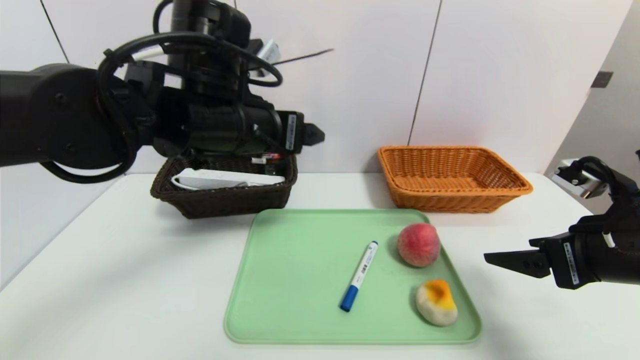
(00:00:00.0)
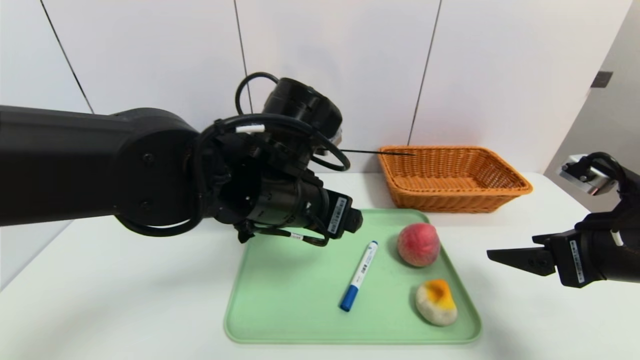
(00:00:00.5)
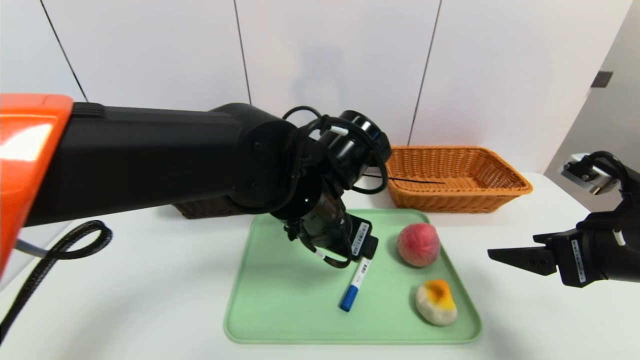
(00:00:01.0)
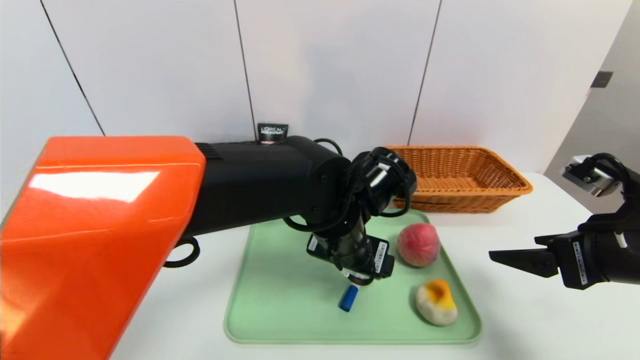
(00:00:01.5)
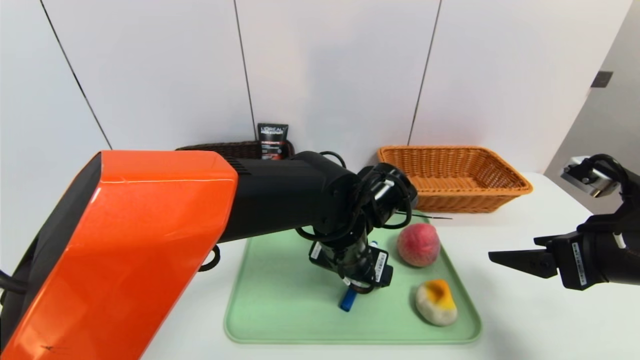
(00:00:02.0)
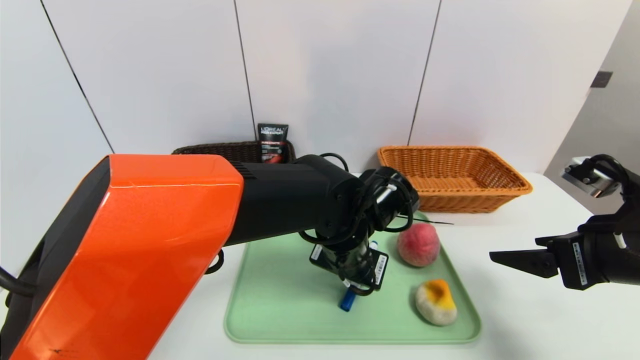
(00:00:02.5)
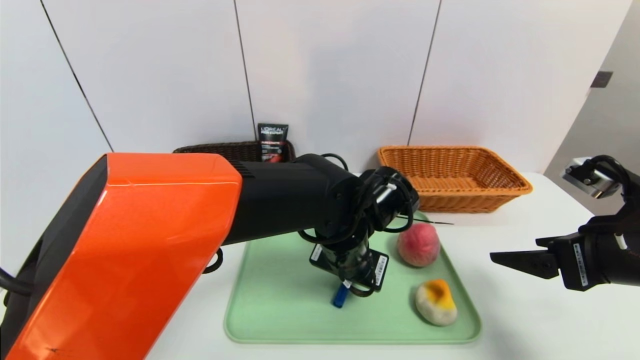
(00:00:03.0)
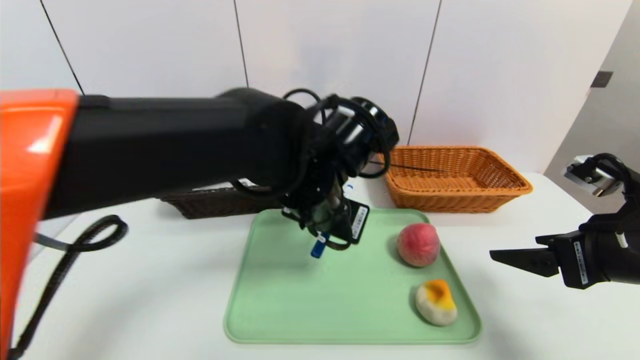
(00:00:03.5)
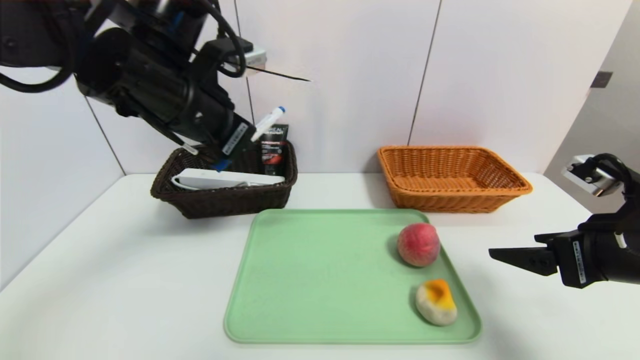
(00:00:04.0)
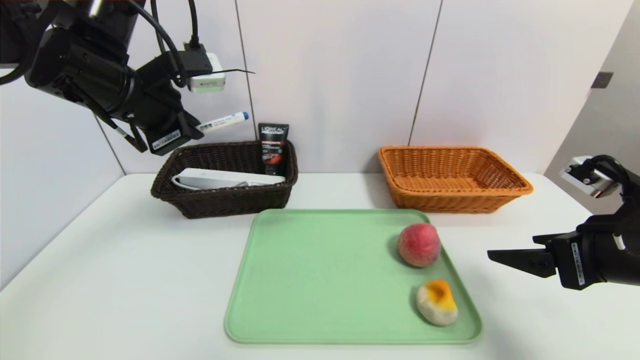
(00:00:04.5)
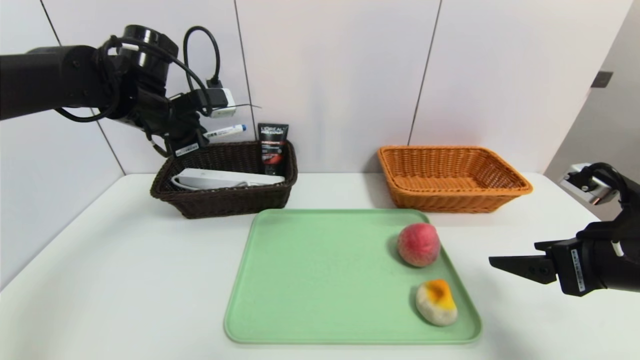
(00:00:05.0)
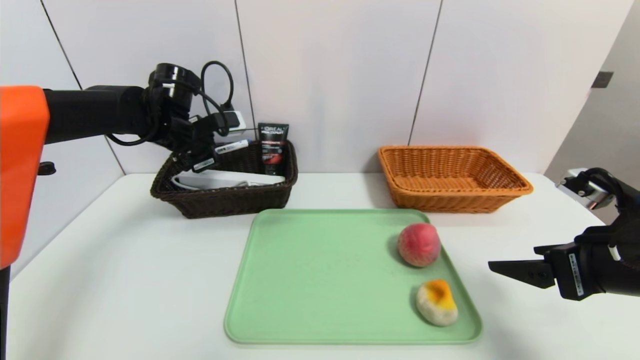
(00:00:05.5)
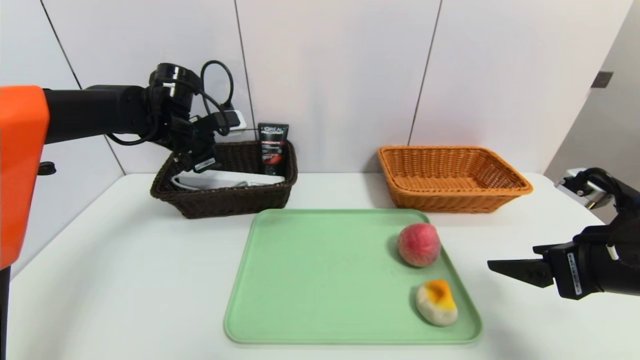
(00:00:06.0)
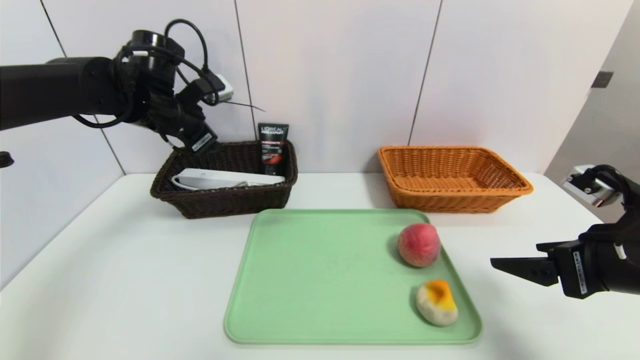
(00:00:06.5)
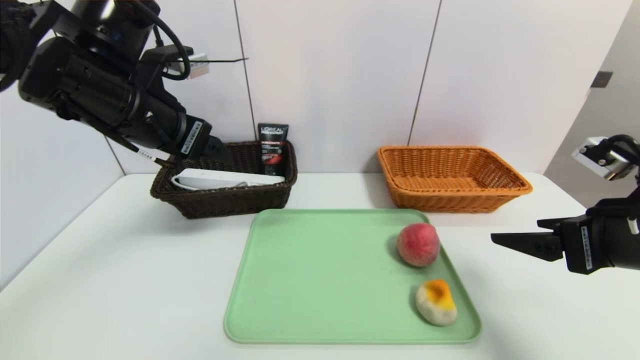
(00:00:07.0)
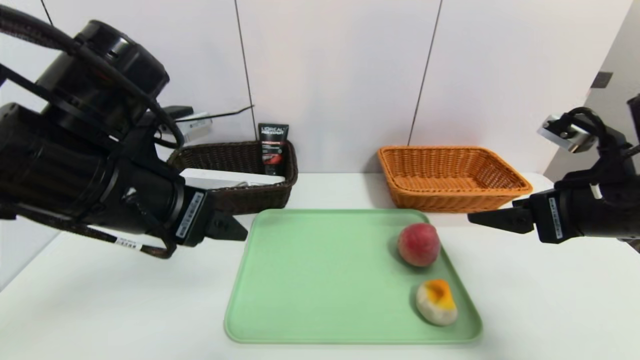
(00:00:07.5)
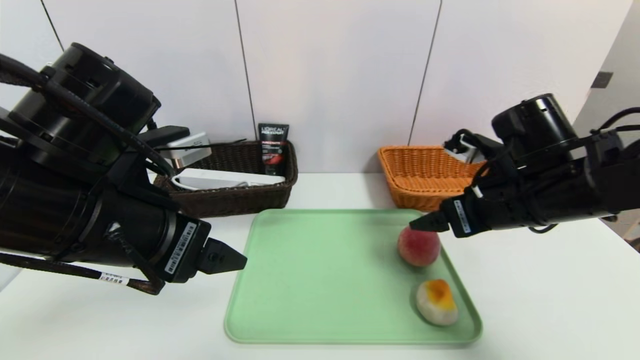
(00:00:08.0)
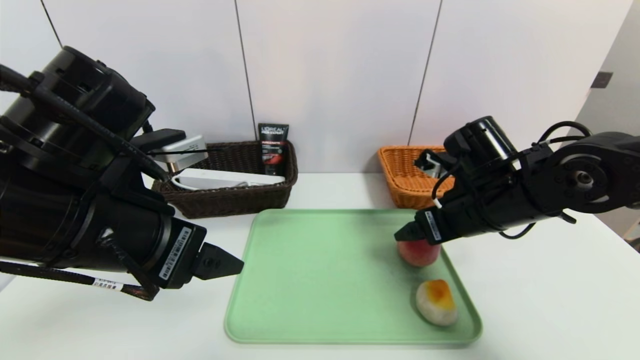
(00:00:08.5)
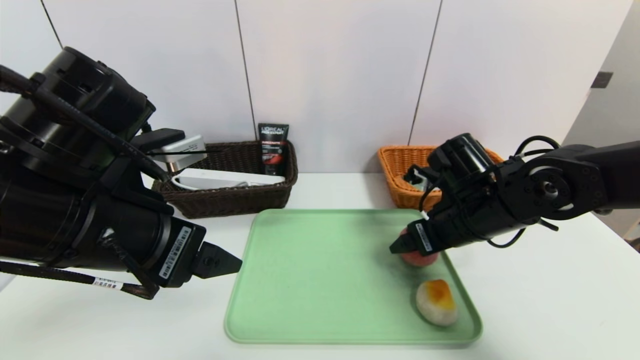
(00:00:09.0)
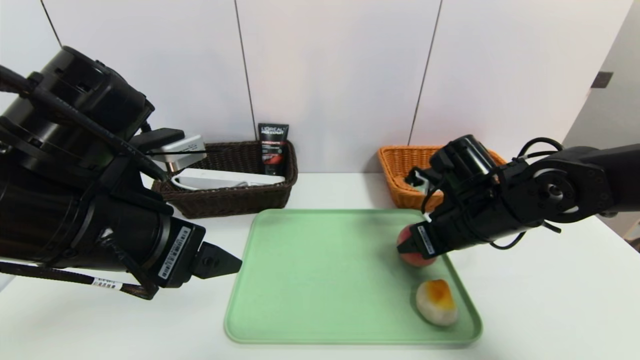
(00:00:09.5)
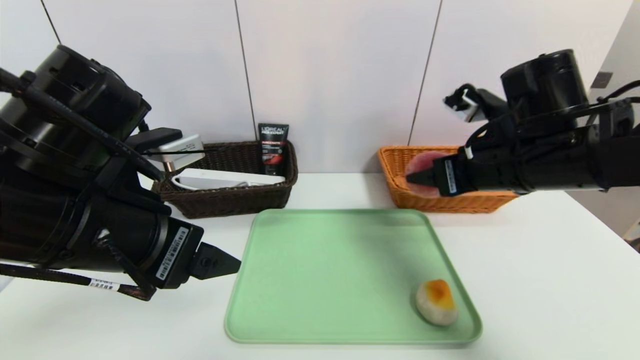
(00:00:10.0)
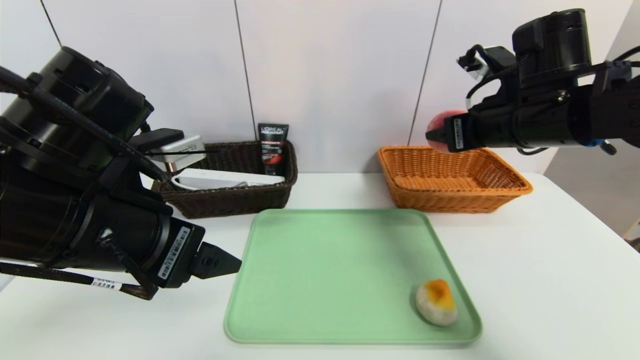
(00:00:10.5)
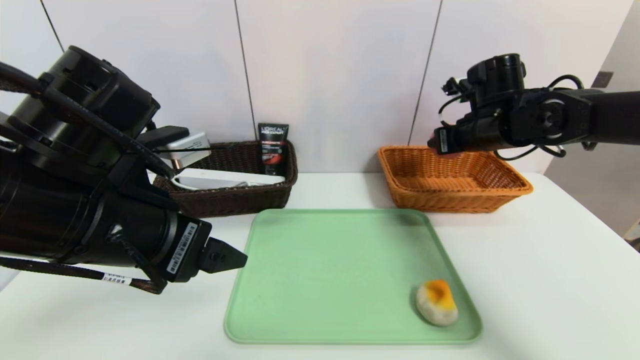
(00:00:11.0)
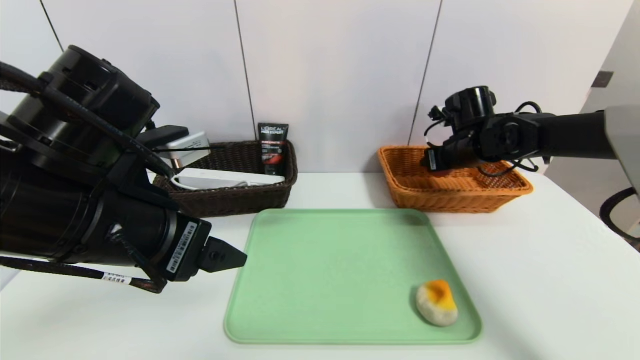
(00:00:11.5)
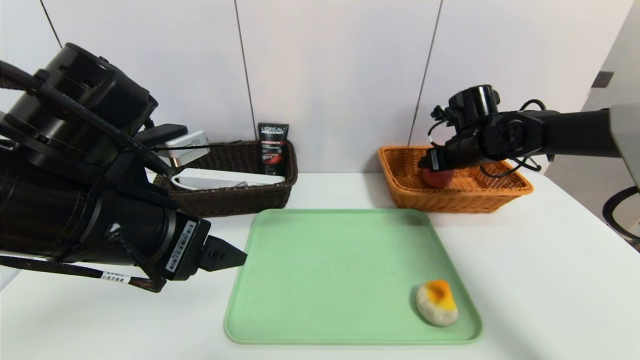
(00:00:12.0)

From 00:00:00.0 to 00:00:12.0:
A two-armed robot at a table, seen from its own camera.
Task of the whole recording: place the food in the right basket with the right gripper, and place the non food items in the left basket with the left gripper.
Step, from 00:00:00.0 to 00:00:06.0: Grasp the blue marker and put it in the left basket.
Step, from 00:00:06.5 to 00:00:12.0: Grasp the peach and put it in the right basket.
From 00:00:00.0 to 00:00:02.0: The left gripper shifts some 20 cm downward and to the right.
From 00:00:02.0 to 00:00:04.0: The left gripper shifts some 25 cm to the left and upward, and closes.
From 00:00:04.0 to 00:00:06.0: The left gripper goes some 20 cm forward, downward and to the left, and opens.
From 00:00:06.0 to 00:00:08.0: The right gripper is displaced forward and to the left by about 10 cm, while the left gripper shifts about 25 cm backward, and opens its fingers.
From 00:00:08.0 to 00:00:10.0: The right gripper closes.
From 00:00:10.0 to 00:00:12.0: The right gripper shifts approximately 15 cm forward.

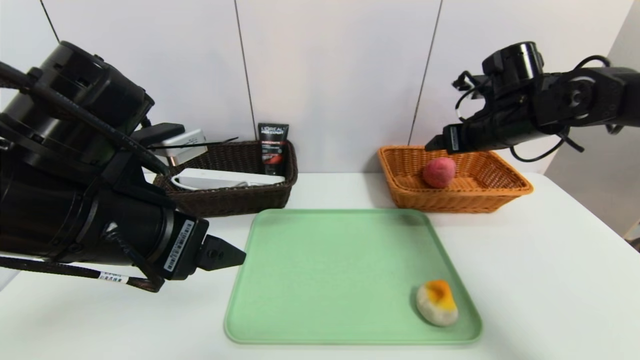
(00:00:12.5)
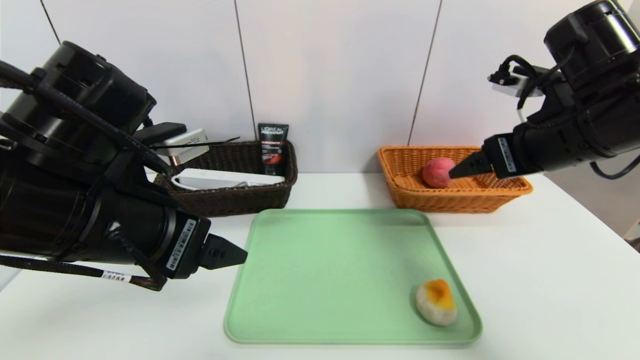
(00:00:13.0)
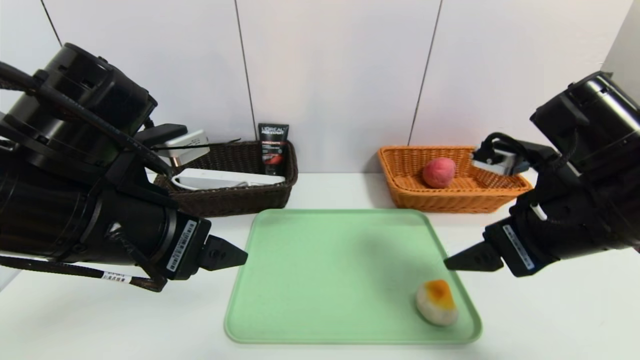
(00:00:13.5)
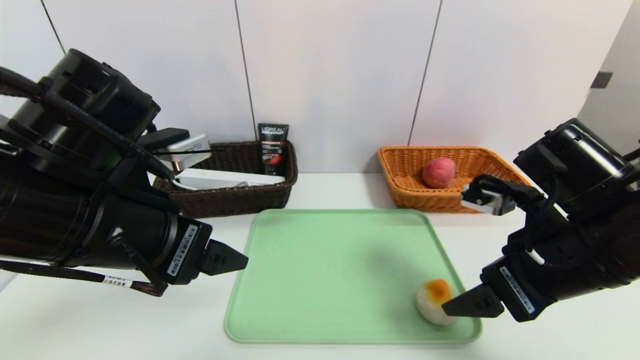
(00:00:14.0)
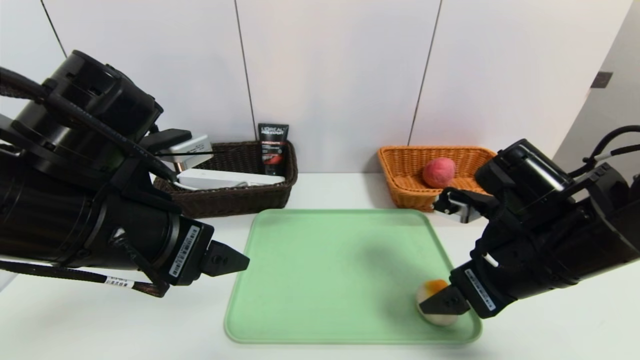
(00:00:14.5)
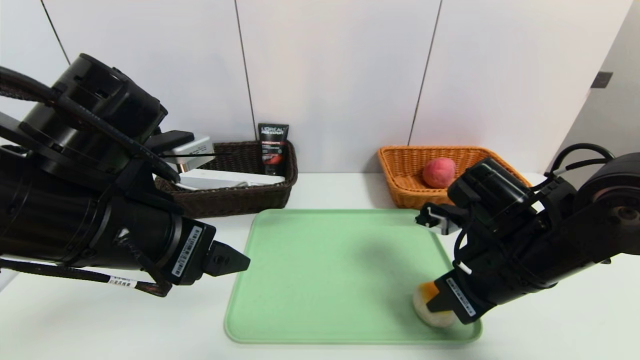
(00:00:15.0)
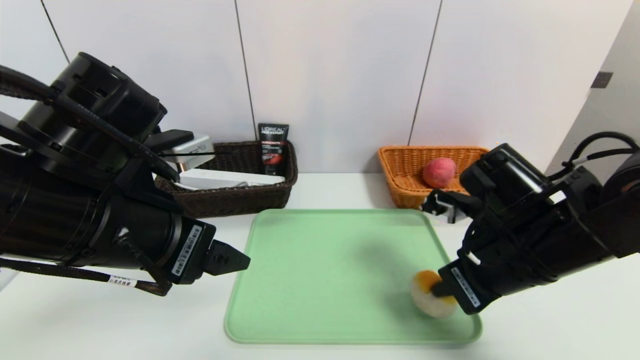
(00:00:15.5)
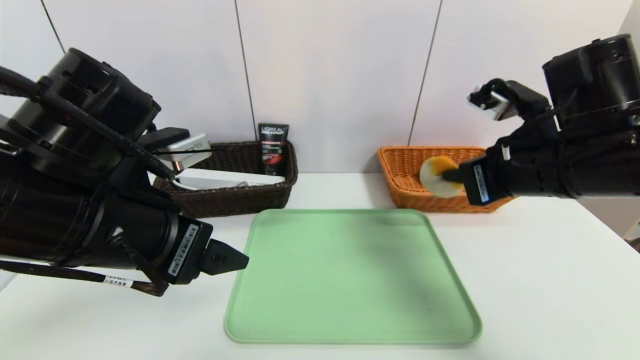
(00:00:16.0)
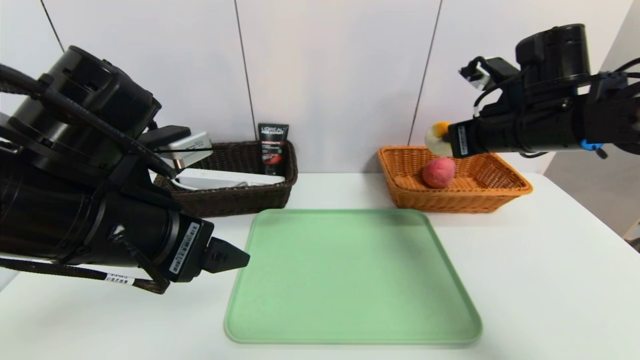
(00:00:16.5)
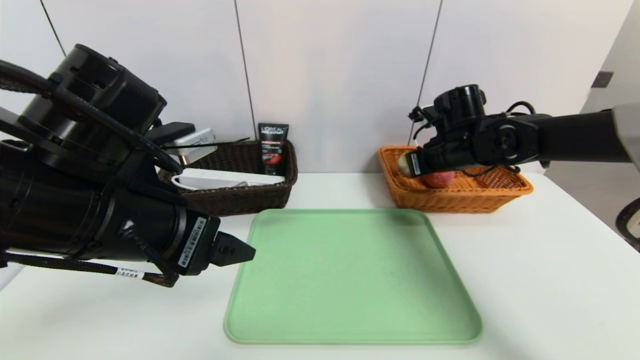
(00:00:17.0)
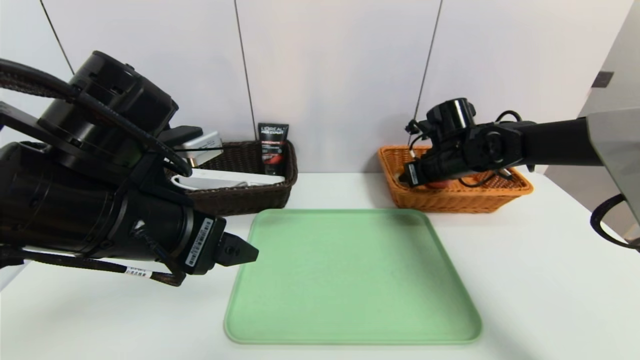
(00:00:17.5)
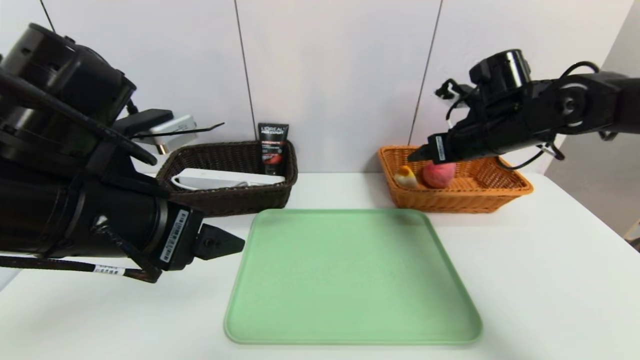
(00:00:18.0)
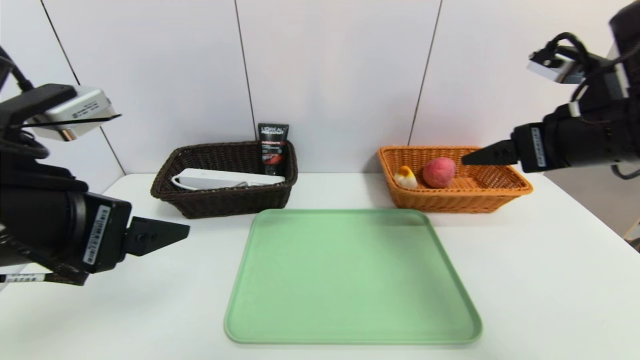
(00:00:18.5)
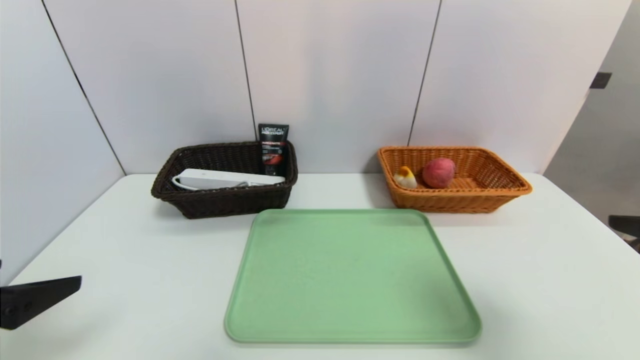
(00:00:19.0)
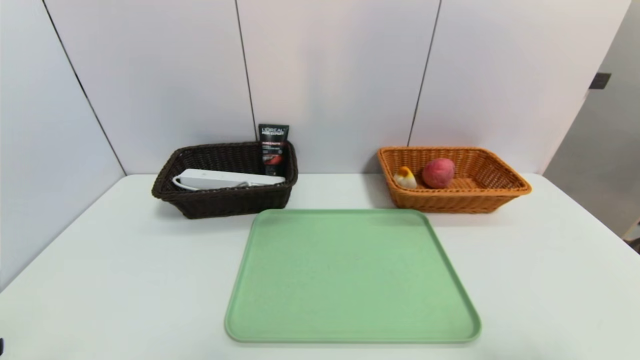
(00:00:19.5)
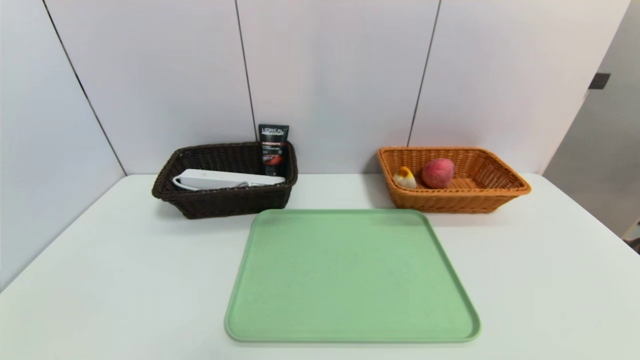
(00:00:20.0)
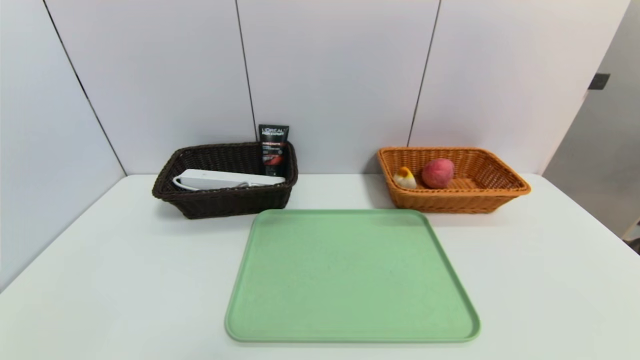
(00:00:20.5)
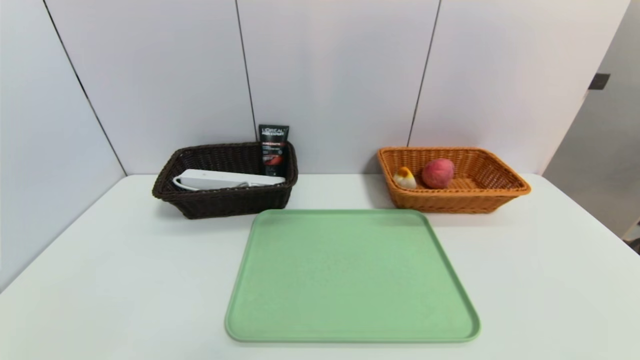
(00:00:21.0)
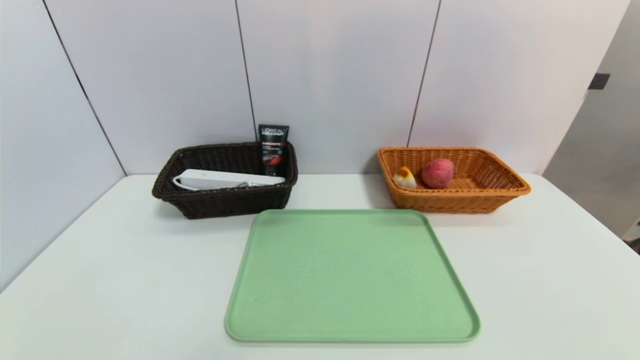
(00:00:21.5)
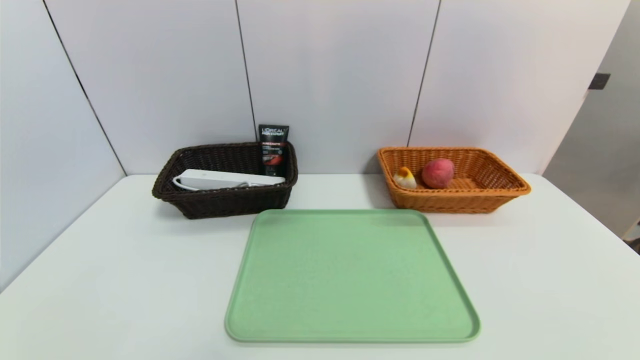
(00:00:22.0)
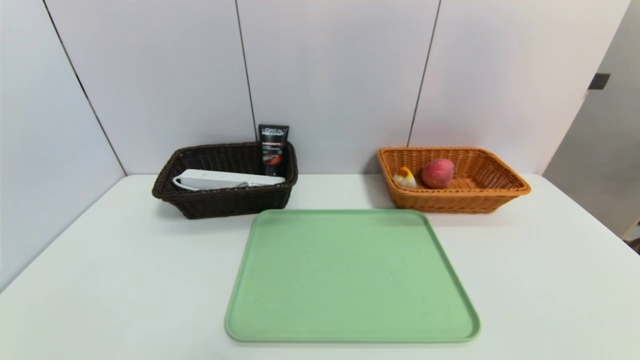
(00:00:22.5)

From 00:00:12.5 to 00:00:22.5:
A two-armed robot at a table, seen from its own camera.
Task of the whole recording: place the food in the right basket with the right gripper, and place the non food items in the left basket with the left gripper.
Step, from 00:00:12.5 to 00:00:17.5: Grasp the egg yolk pastry and put it in the right basket.
From 00:00:12.5 to 00:00:14.5: The right gripper travels backward by some 15 cm.
From 00:00:14.5 to 00:00:16.5: The right gripper moves forward and upward, about 15 cm, and closes.
From 00:00:16.5 to 00:00:18.5: The left gripper shifts by about 5 cm; the right gripper travels backward by roughly 10 cm, and opens.
From 00:00:18.5 to 00:00:20.5: The left gripper travels backward, downward and to the left by approximately 25 cm; the right gripper is displaced backward by roughly 30 cm.
